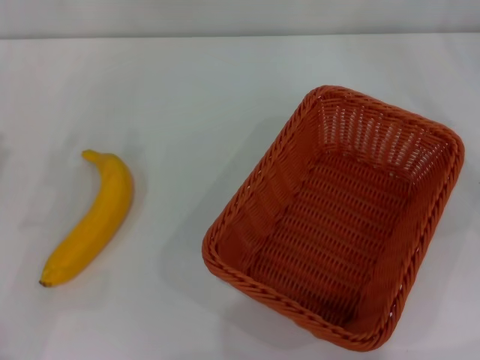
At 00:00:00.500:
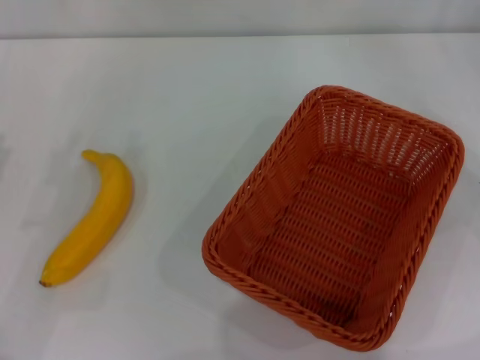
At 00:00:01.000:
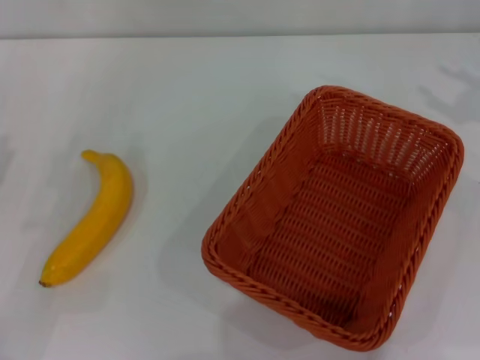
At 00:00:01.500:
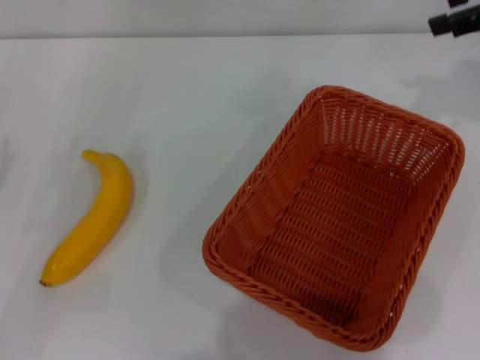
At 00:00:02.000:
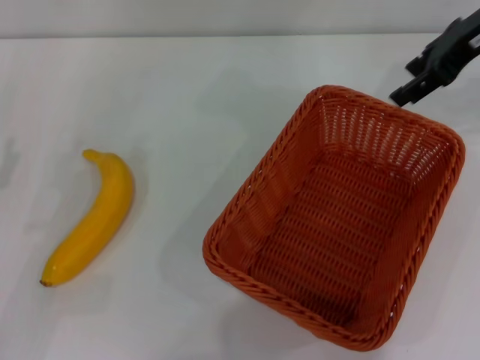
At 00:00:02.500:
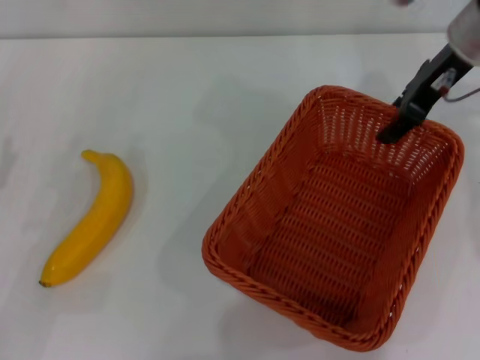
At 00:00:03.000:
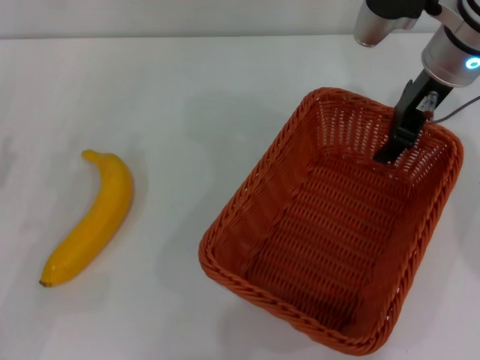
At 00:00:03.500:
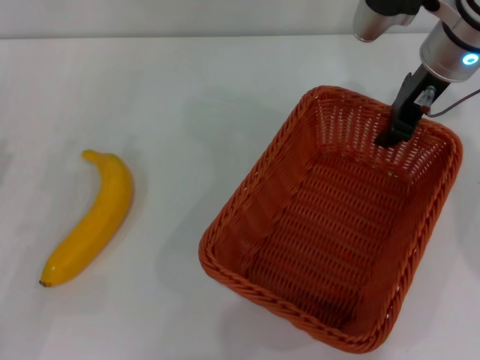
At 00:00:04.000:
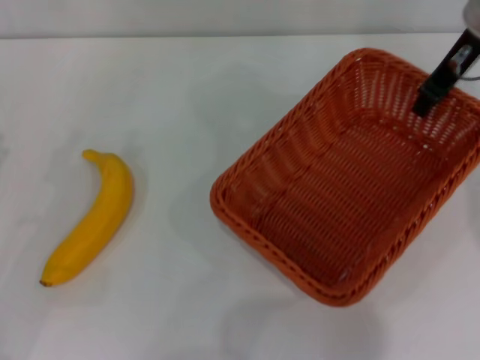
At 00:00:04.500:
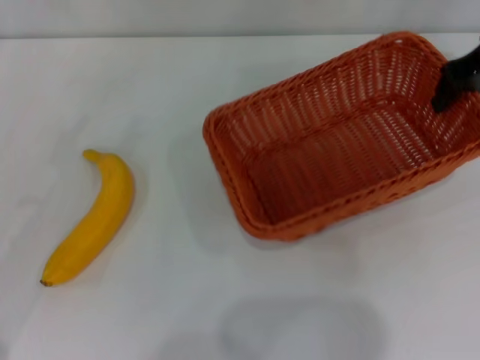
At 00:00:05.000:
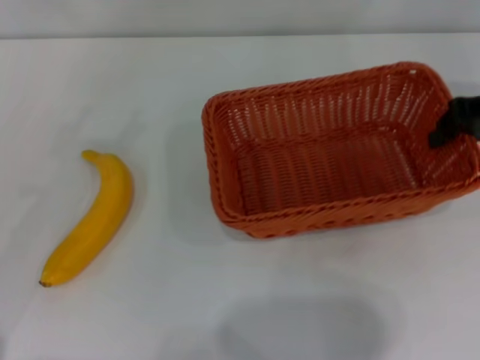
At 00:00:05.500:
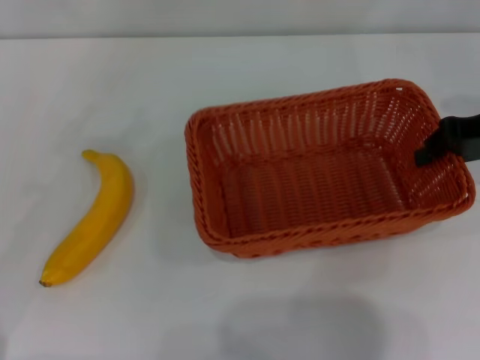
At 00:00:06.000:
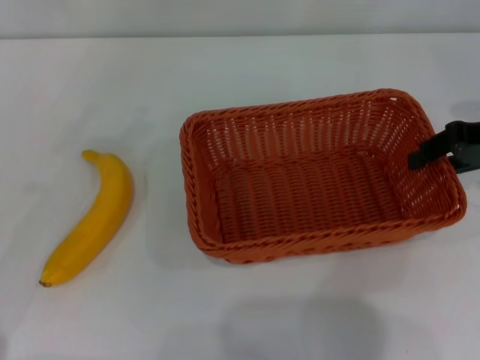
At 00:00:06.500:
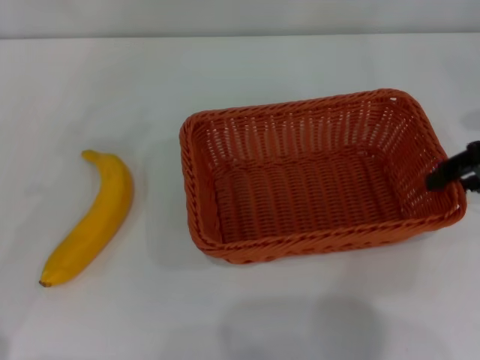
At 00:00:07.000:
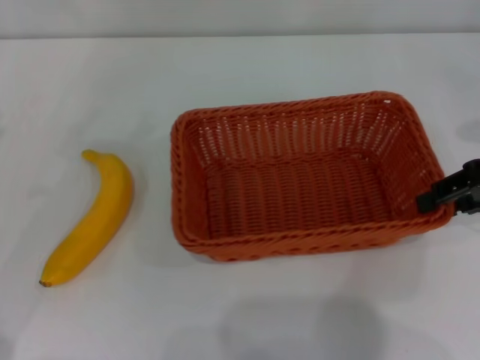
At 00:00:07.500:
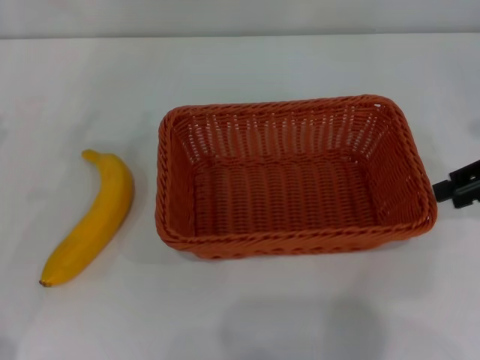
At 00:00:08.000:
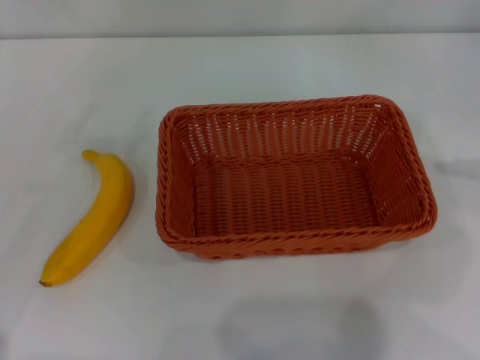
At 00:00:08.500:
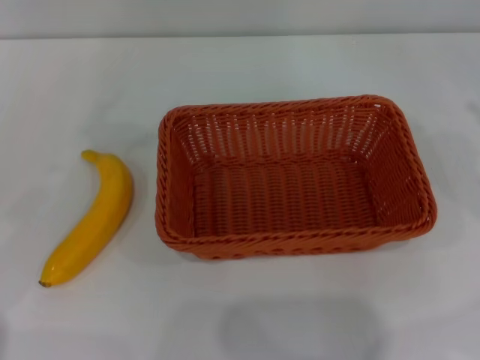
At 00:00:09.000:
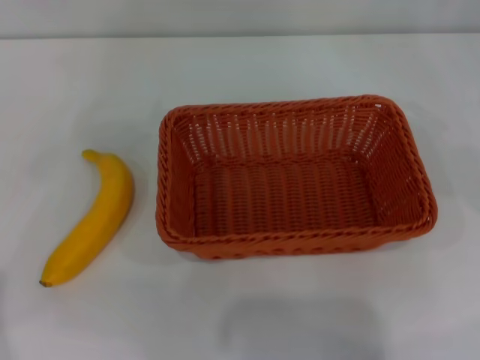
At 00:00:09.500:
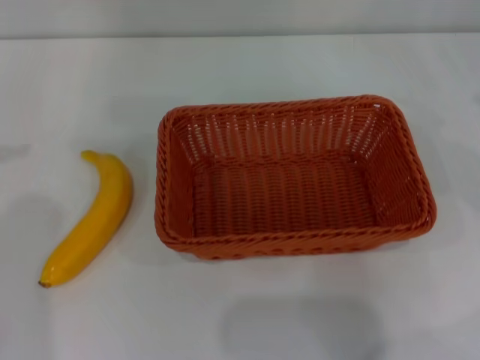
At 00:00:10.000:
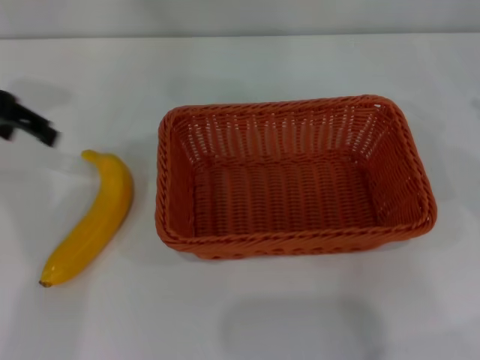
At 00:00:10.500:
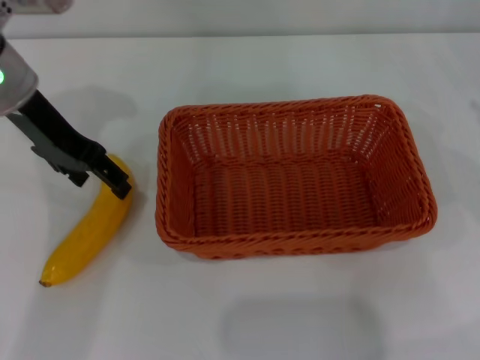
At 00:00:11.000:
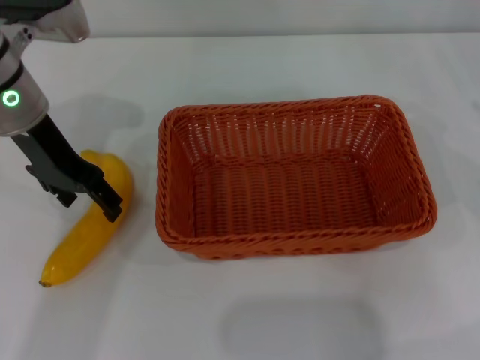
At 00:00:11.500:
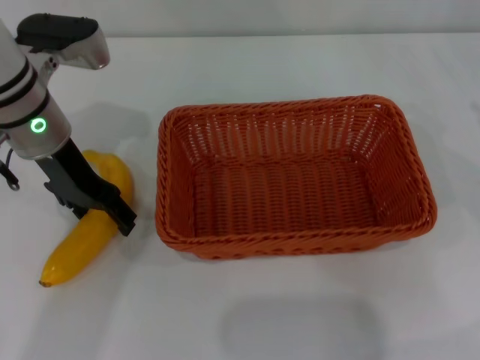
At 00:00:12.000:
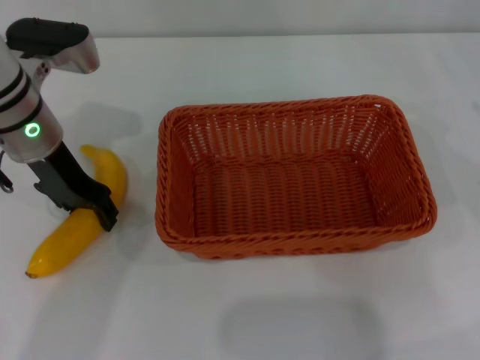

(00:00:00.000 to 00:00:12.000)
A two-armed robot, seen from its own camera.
Step, 00:00:00.000 - 00:00:04.000: Pick up the light basket with the right gripper.
Step, 00:00:04.500 - 00:00:07.500: Place the light basket in the center of view with the right gripper.
00:00:00.000 - 00:00:02.000: The right gripper shifts about 25 cm to the left, upward and forward.
00:00:02.000 - 00:00:04.000: The right gripper closes.
00:00:04.000 - 00:00:06.000: The left gripper moves about 5 cm. The right gripper goes some 15 cm to the right, backward and downward.
00:00:06.000 - 00:00:08.000: The right gripper is displaced to the right by about 10 cm, and opens up.
00:00:08.000 - 00:00:10.000: The left gripper is displaced forward, upward and to the right by approximately 20 cm.
00:00:10.000 - 00:00:12.000: The left gripper travels downward and to the right by approximately 15 cm, and closes up.

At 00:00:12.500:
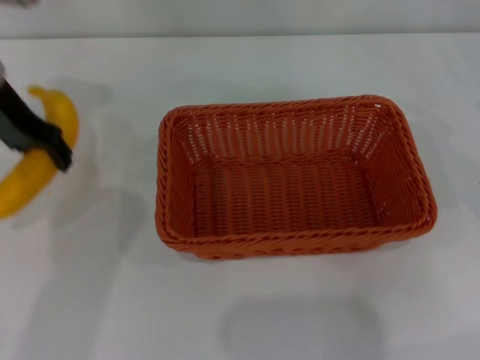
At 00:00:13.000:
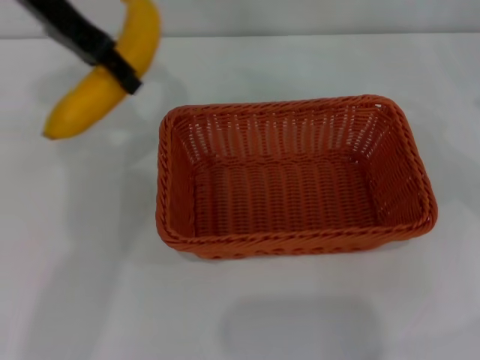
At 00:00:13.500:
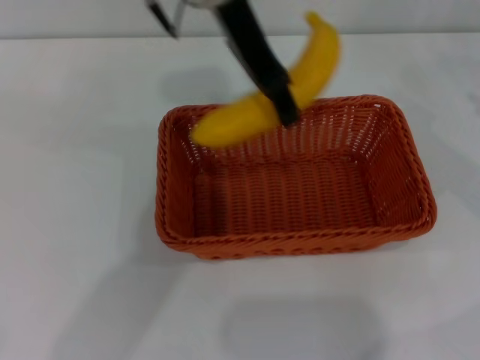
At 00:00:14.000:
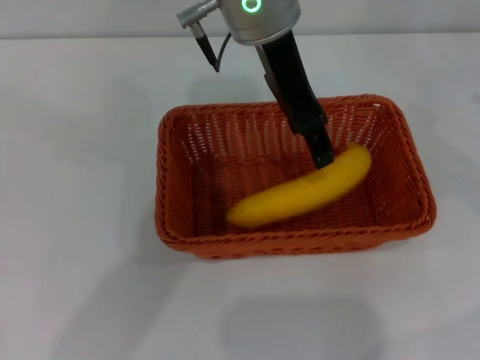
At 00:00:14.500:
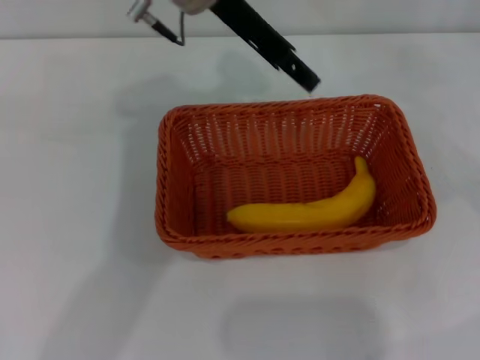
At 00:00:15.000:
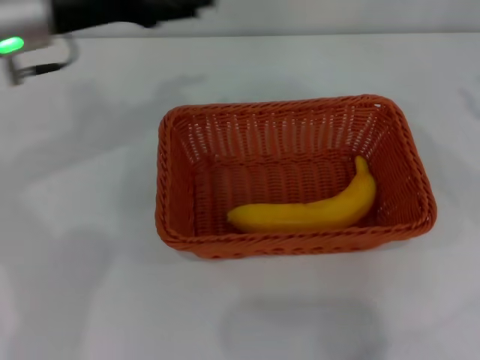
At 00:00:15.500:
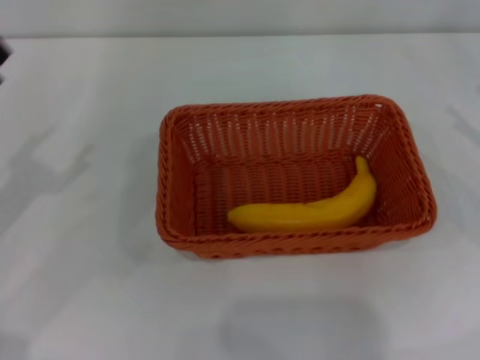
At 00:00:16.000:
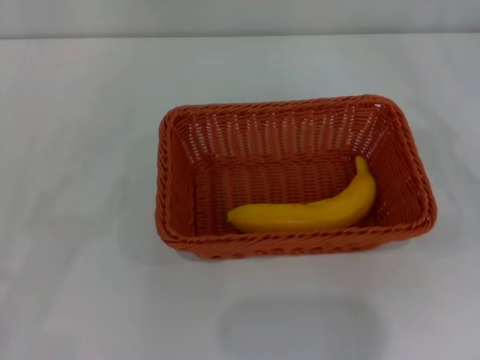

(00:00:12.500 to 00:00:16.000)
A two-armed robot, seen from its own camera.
Step, 00:00:13.000 - 00:00:14.000: Place the banana into the light basket with the left gripper.
00:00:12.500 - 00:00:14.500: The left gripper travels to the right by approximately 20 cm, and opens.
00:00:14.500 - 00:00:16.000: The left gripper is displaced to the left, backward and downward by some 40 cm; the right gripper is displaced downward by some 5 cm, and opens up.
